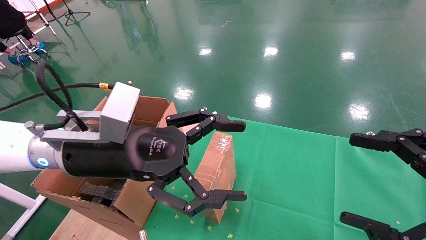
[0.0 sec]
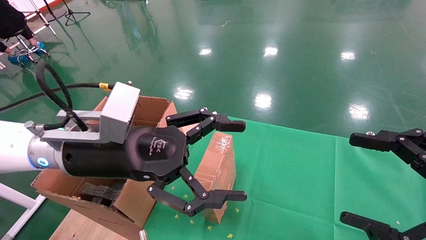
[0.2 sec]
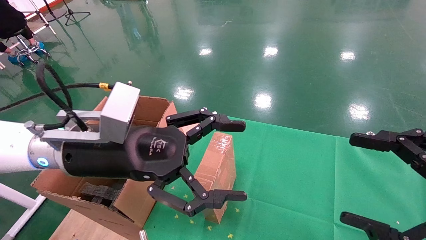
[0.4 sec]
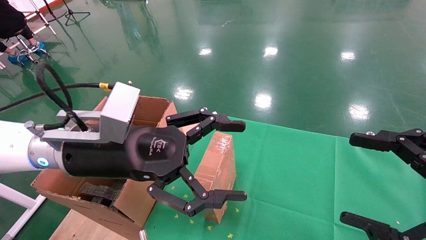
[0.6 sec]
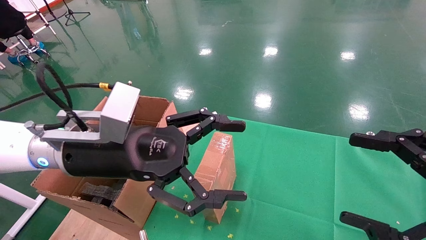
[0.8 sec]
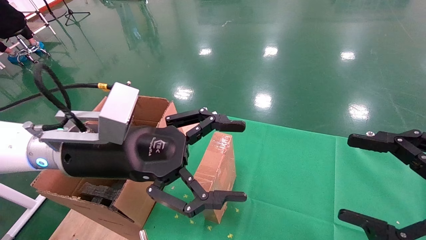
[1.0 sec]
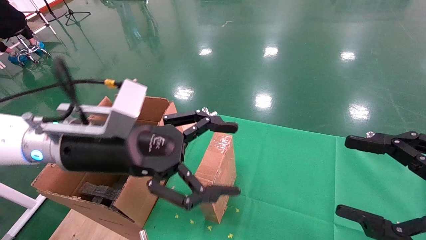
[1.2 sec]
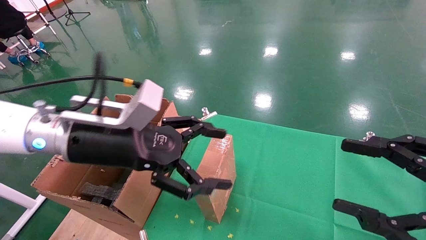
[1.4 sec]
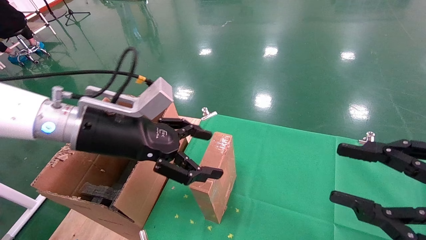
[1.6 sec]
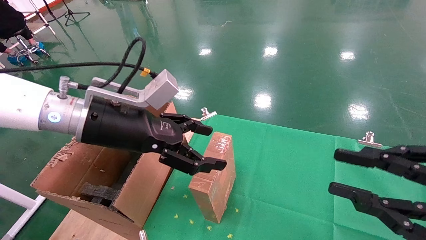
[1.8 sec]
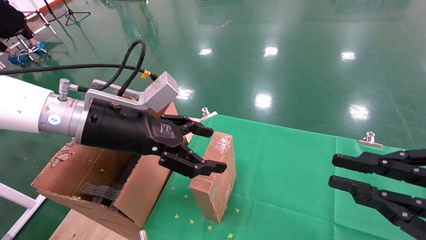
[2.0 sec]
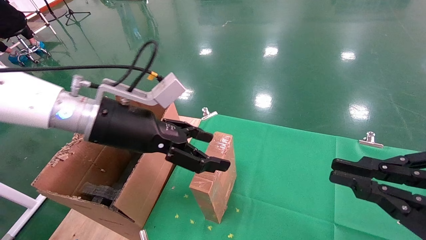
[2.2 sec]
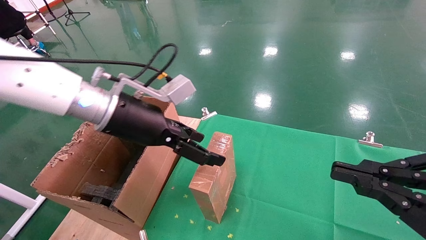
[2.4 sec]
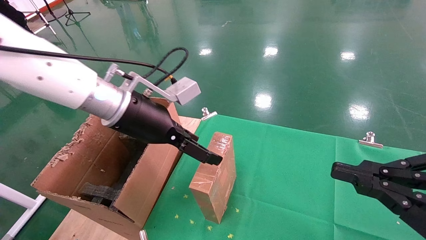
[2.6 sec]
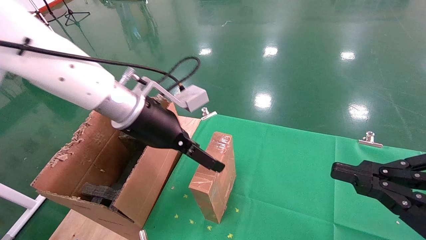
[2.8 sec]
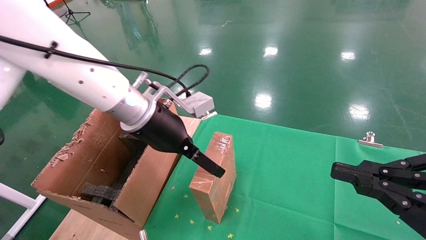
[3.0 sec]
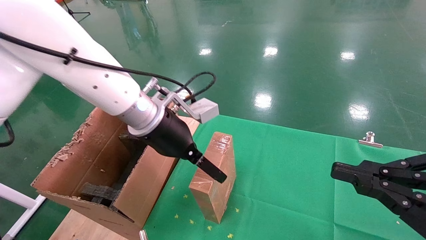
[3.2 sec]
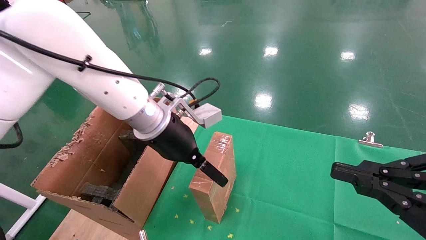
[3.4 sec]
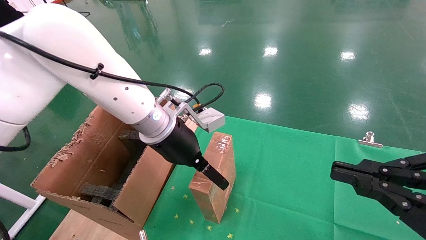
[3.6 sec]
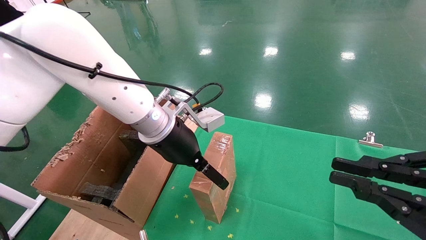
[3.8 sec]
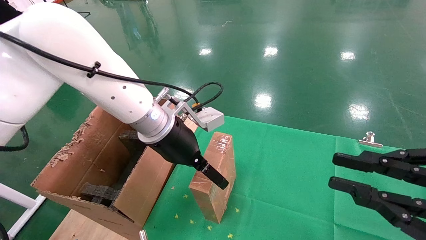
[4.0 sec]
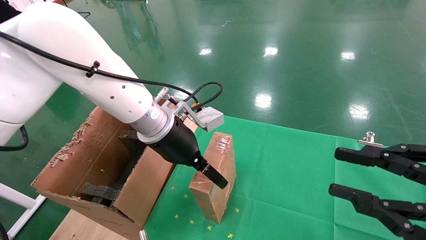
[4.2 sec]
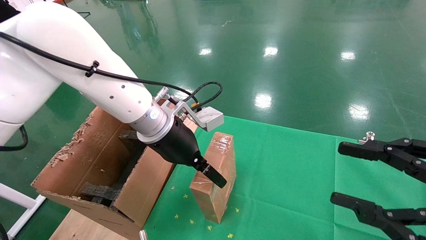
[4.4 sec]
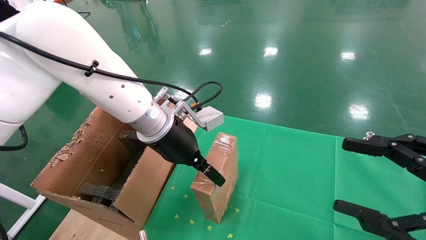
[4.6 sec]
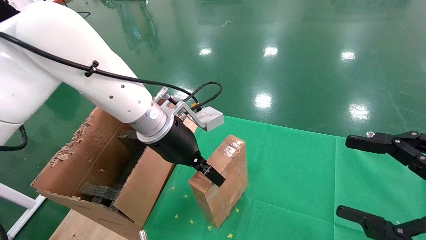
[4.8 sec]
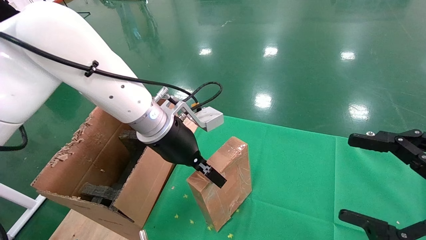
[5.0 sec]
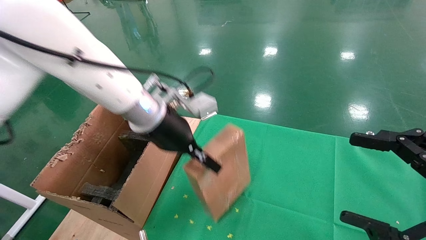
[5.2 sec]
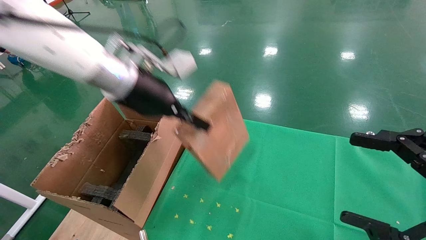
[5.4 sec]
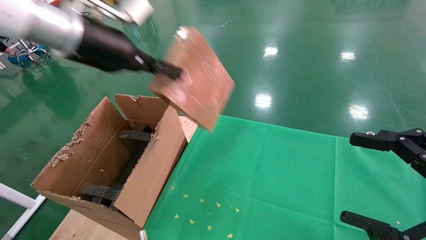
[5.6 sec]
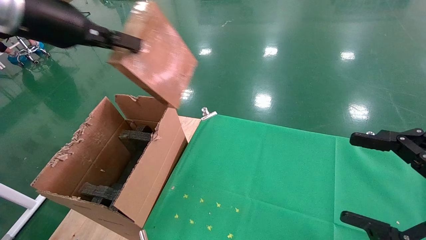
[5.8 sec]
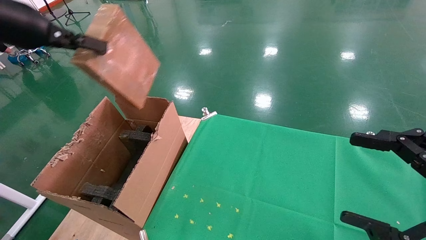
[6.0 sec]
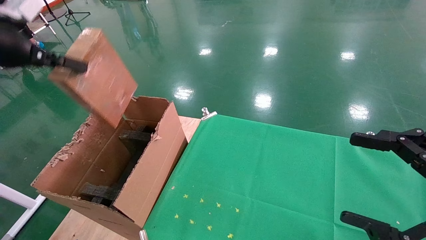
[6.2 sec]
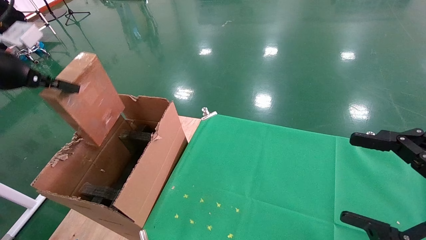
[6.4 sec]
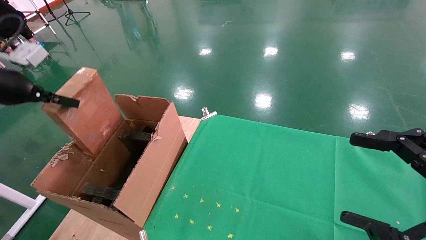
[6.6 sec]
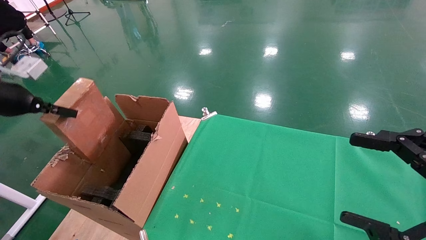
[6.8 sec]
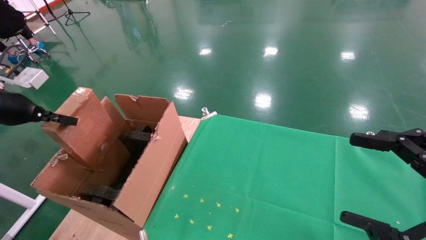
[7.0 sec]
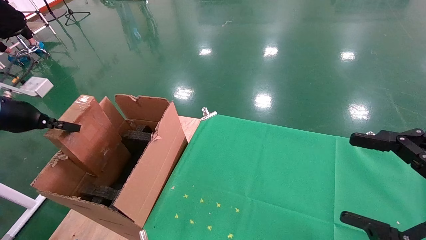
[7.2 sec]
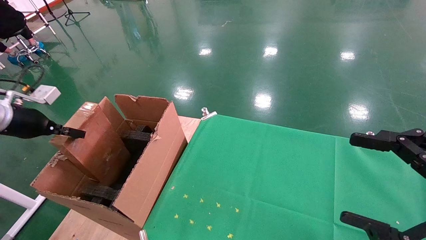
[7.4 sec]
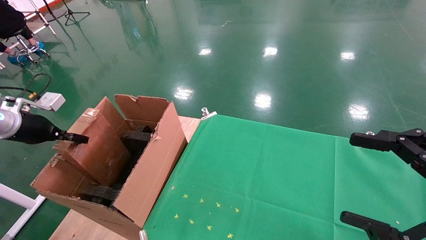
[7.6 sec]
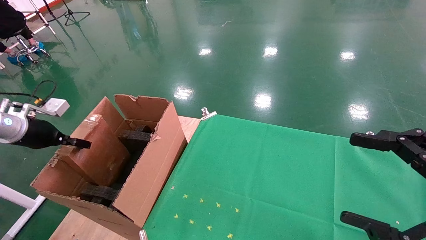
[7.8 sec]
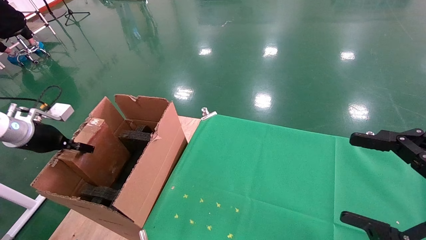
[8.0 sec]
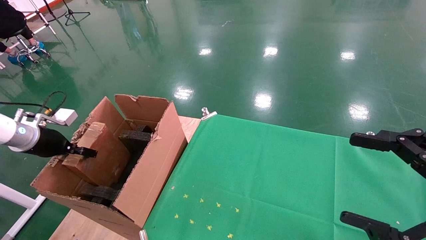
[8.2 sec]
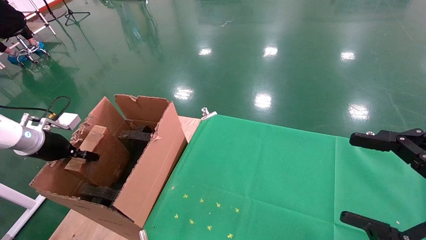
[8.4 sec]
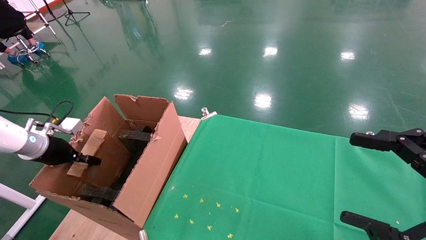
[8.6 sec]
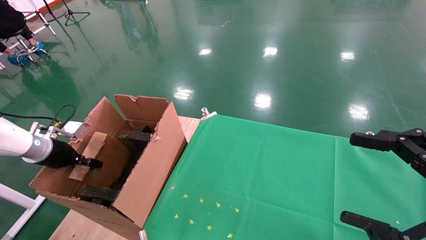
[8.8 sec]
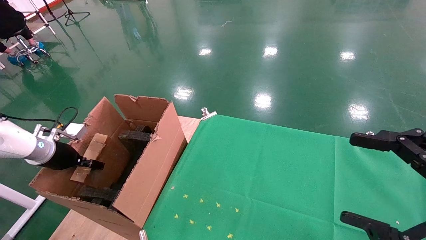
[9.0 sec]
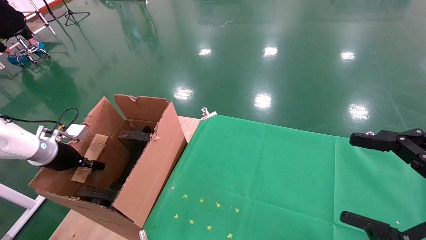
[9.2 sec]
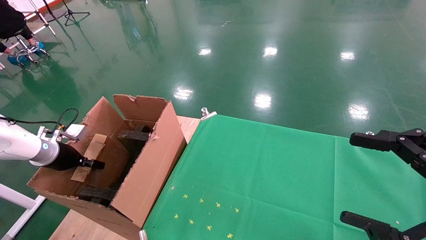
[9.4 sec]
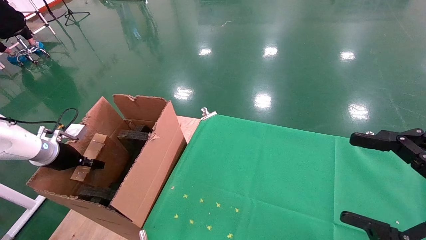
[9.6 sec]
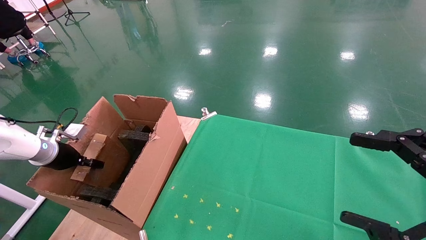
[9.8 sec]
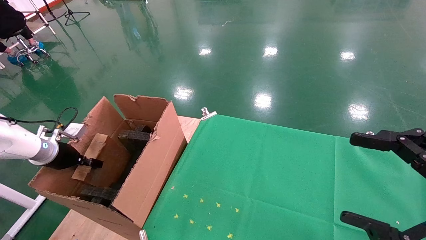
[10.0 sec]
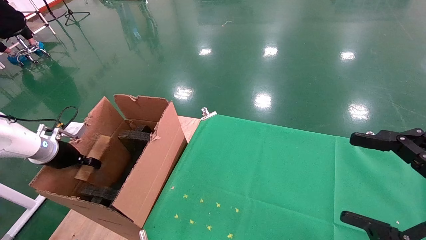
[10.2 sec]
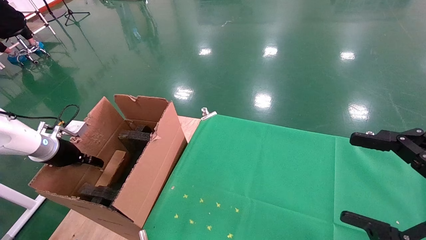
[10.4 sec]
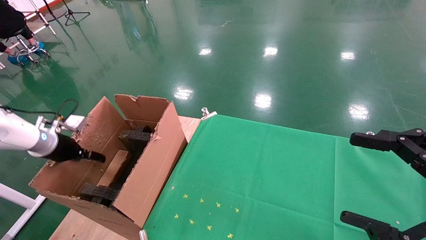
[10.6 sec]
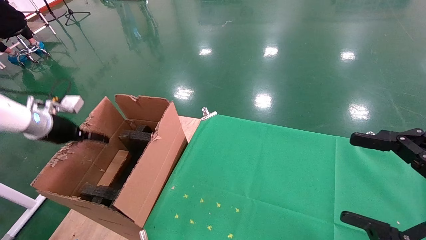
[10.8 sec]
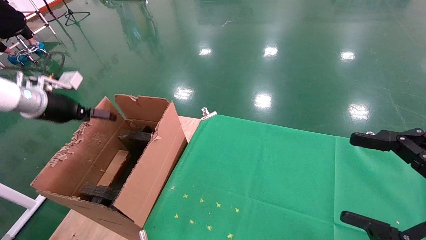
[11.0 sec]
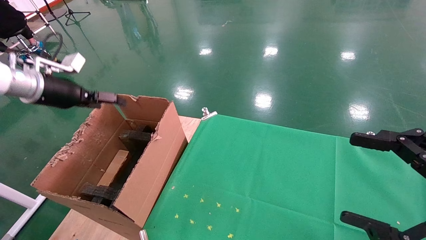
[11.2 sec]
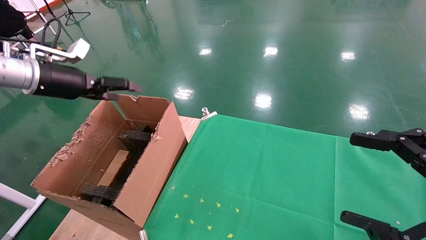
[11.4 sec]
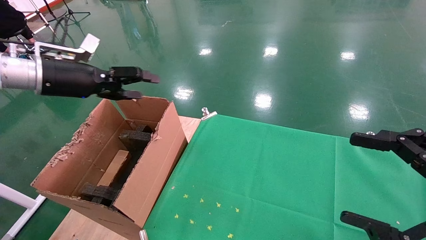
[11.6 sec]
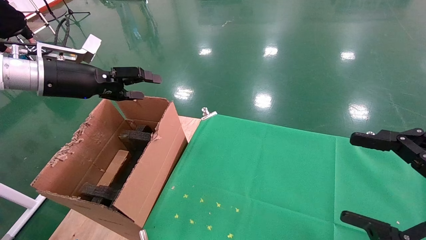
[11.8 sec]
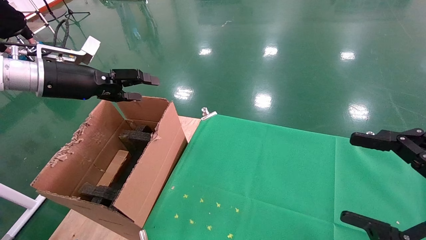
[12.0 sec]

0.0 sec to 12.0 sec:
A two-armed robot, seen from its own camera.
Task of the whole recording: using a robotic arm to pick up a cardboard box and palace it the carton.
Step, 1.4 sec to 4.8 sec: Pick up the mouse and the power cord paper box.
Step, 5.0 sec to 10.6 sec: Place the mouse and the power cord paper box into the container.
0.0 sec to 1.6 sec: The right gripper closes its fingers.
1.6 sec to 3.0 sec: The right gripper closes. Meanwhile the left gripper moves forward and to the right, some 10 cm.
3.0 sec to 4.4 sec: The right gripper opens.
4.4 sec to 6.0 sec: The right gripper opens its fingers. Meanwhile the left gripper heads to the left and upward, covering roughly 30 cm, and closes its fingers.
6.0 sec to 7.6 sec: The left gripper travels downward and to the left by some 25 cm.
7.6 sec to 9.0 sec: The left gripper goes roughly 10 cm downward.
9.0 sec to 10.4 sec: The left gripper opens.
10.4 sec to 12.0 sec: The left gripper shifts approximately 20 cm upward and to the right, and opens up.

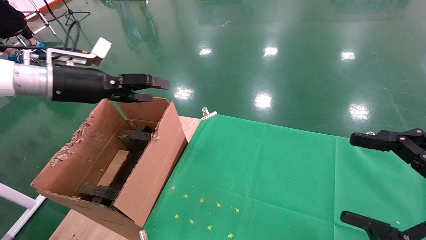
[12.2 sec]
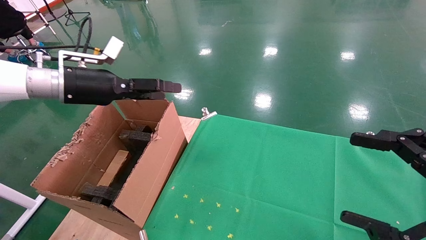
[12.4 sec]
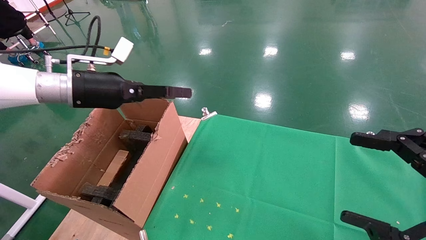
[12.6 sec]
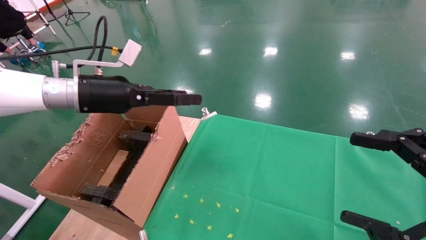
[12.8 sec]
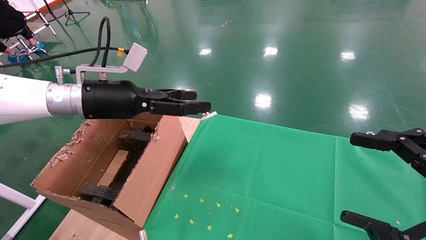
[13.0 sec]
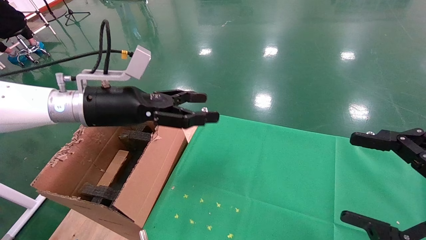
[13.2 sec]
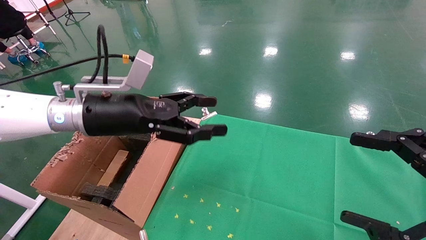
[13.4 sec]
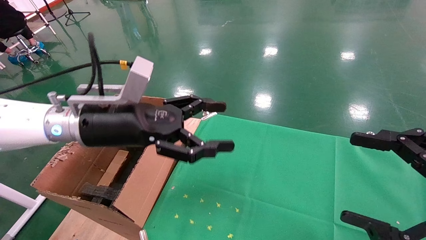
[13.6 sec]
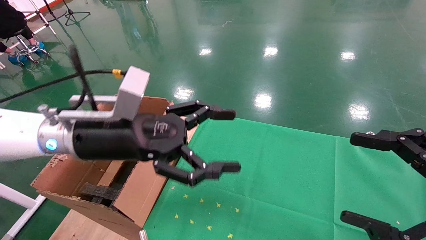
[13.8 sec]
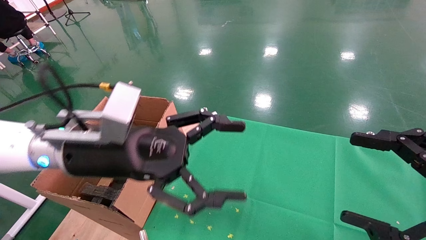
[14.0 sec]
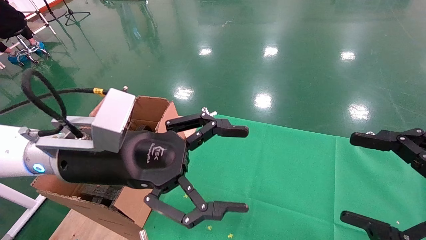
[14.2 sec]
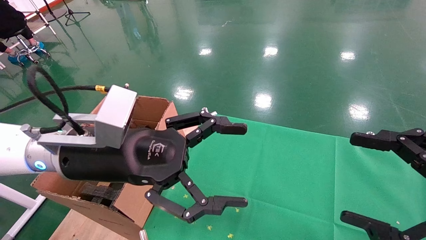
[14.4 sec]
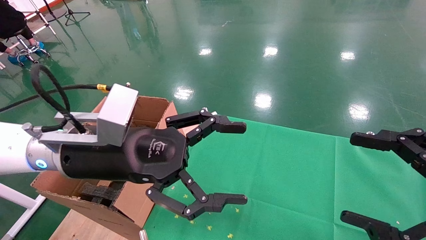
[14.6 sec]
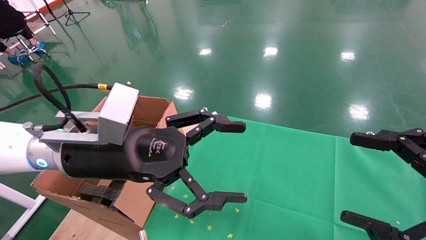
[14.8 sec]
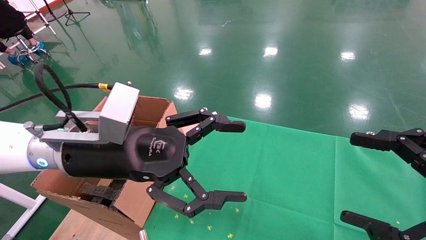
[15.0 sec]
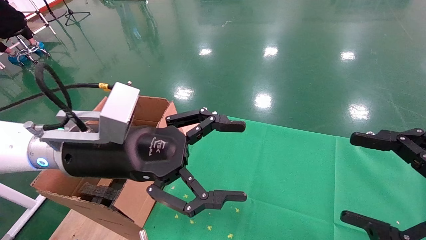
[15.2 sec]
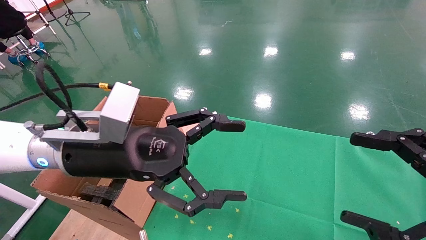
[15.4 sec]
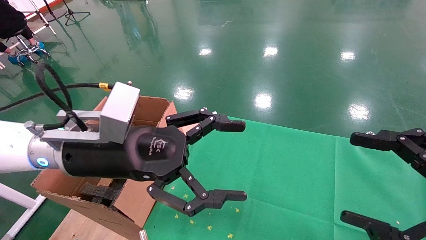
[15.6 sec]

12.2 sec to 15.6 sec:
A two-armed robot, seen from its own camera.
Task of the whole recording: using a robotic arm to pick up a cardboard box and palace it the carton.
12.2 sec to 13.8 sec: The left gripper goes about 15 cm to the right and backward.
13.8 sec to 15.6 sec: The grippers make only small movements.

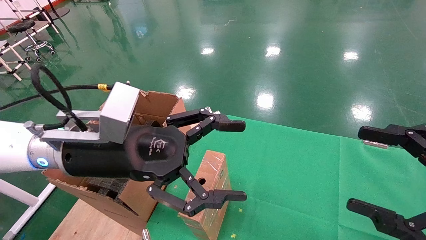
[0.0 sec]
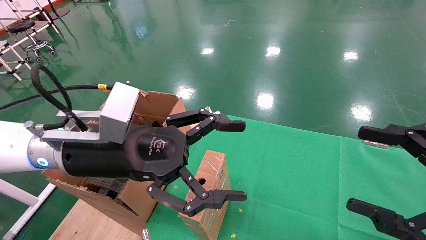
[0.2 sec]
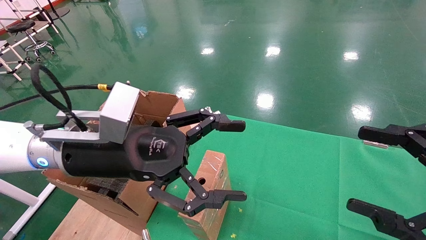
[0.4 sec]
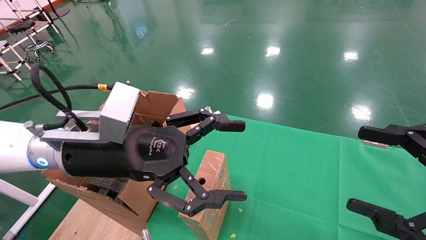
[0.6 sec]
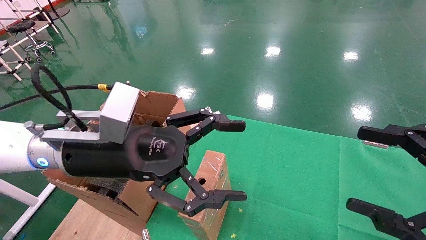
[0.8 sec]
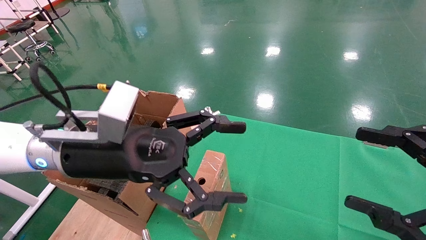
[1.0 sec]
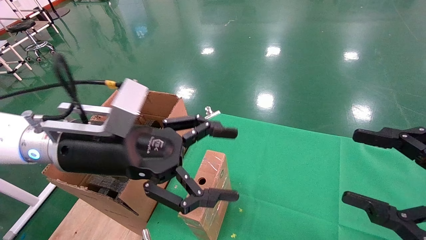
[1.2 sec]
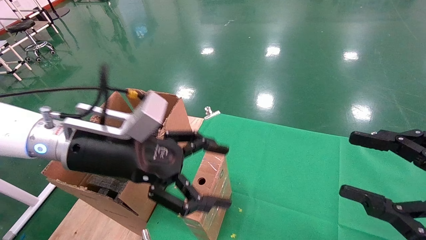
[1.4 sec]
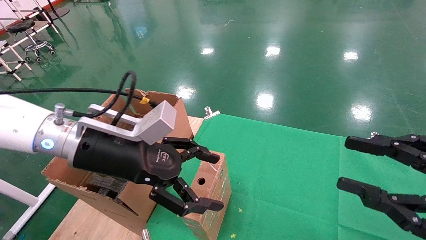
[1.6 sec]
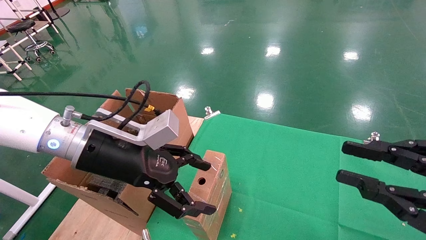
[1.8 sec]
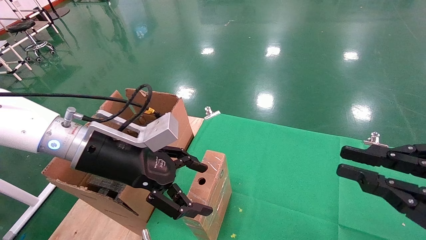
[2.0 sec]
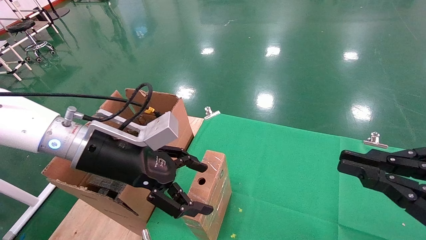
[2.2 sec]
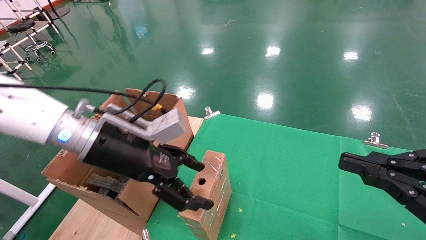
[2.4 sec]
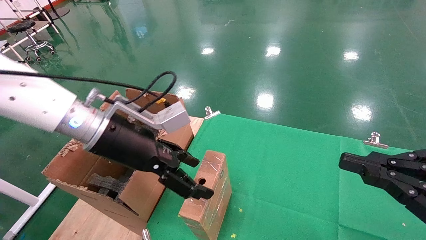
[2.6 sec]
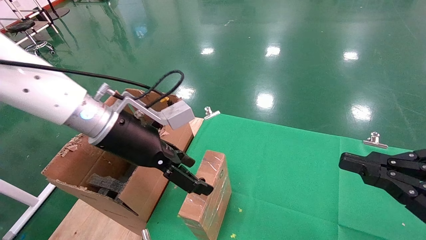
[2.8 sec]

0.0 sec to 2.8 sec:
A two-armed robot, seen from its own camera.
Task of the whole recording: using a robotic arm to pick up a cardboard box and palace it the carton.
1.4 sec to 2.8 sec: The right gripper closes its fingers.
